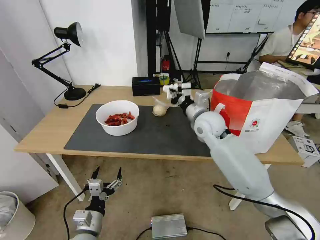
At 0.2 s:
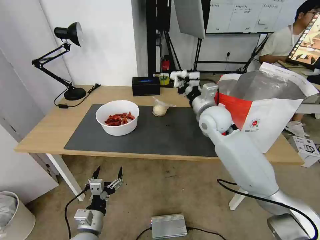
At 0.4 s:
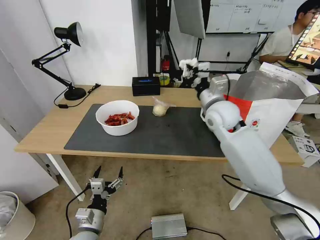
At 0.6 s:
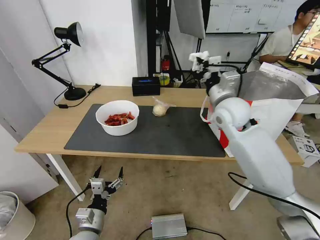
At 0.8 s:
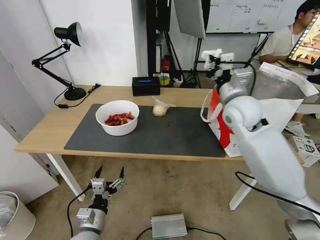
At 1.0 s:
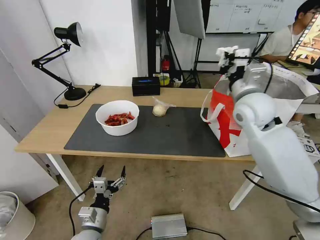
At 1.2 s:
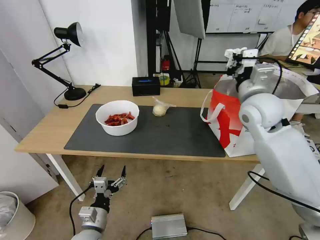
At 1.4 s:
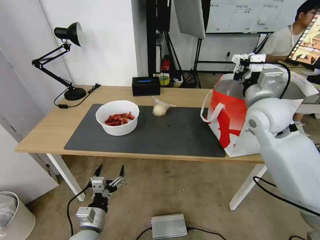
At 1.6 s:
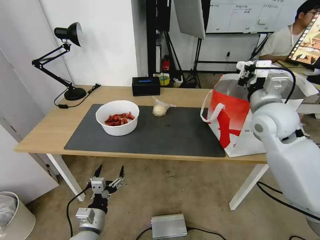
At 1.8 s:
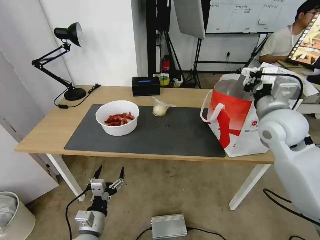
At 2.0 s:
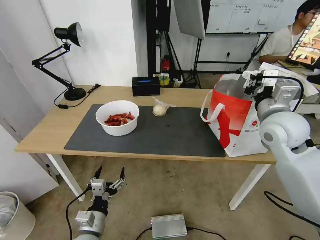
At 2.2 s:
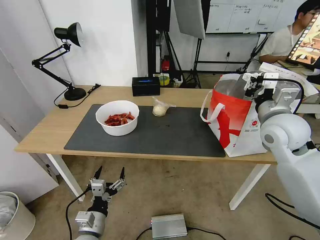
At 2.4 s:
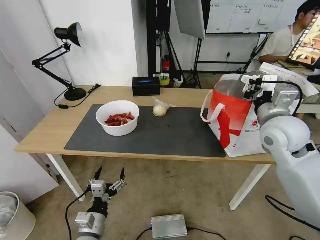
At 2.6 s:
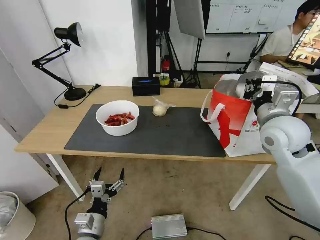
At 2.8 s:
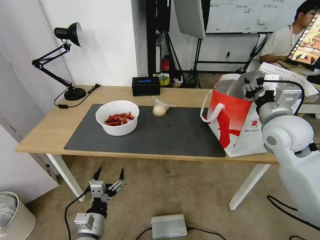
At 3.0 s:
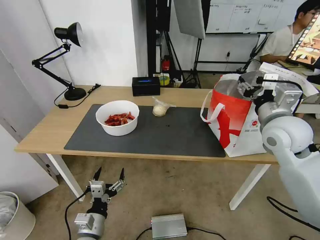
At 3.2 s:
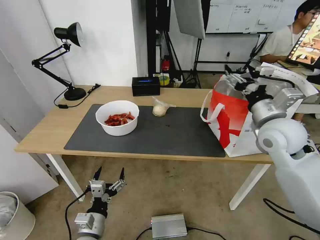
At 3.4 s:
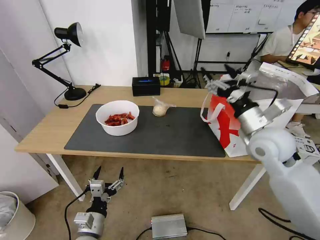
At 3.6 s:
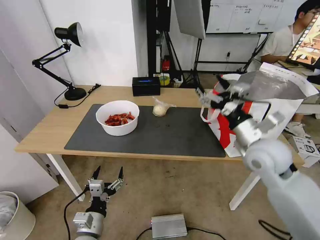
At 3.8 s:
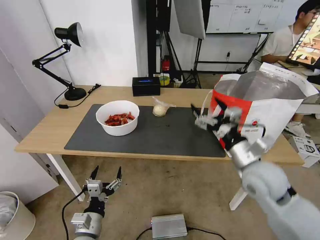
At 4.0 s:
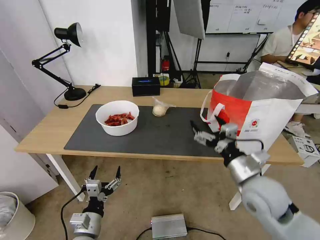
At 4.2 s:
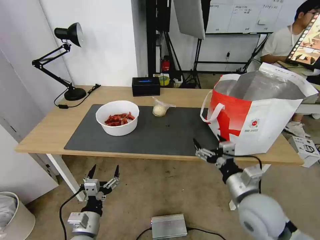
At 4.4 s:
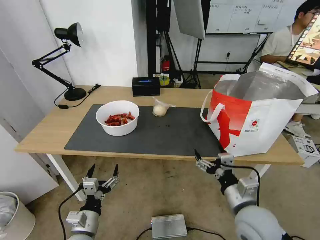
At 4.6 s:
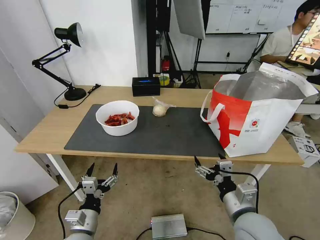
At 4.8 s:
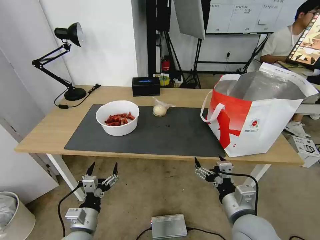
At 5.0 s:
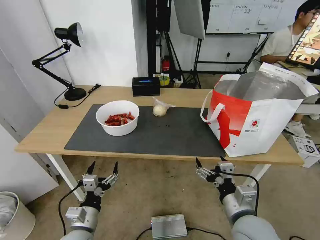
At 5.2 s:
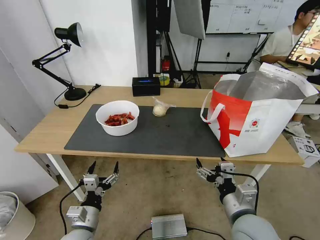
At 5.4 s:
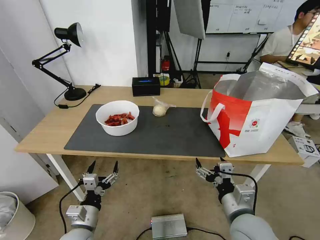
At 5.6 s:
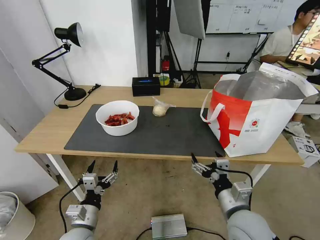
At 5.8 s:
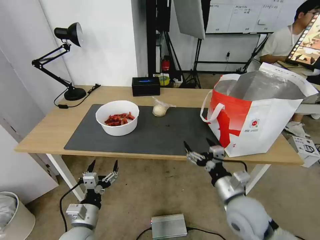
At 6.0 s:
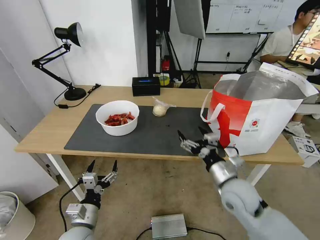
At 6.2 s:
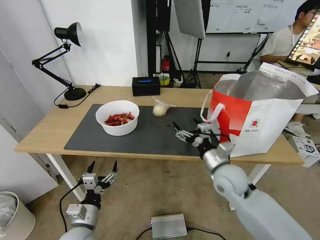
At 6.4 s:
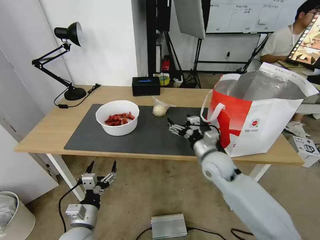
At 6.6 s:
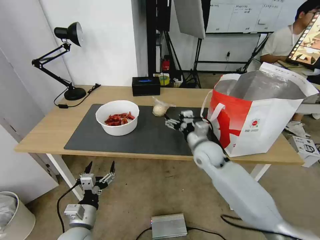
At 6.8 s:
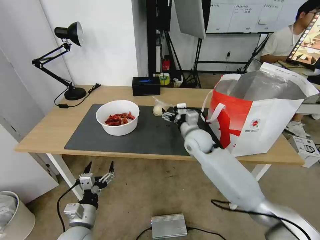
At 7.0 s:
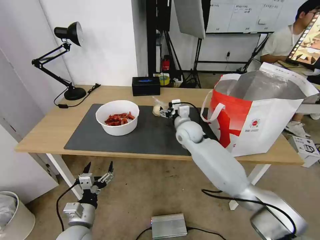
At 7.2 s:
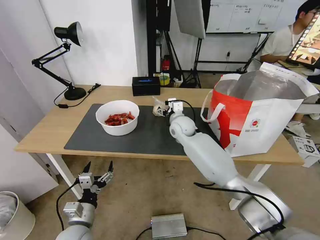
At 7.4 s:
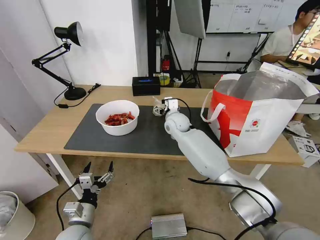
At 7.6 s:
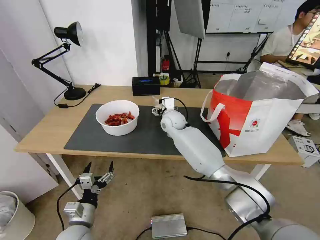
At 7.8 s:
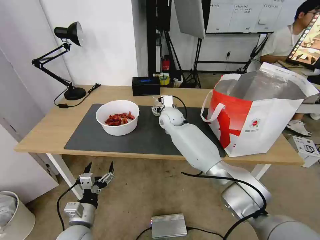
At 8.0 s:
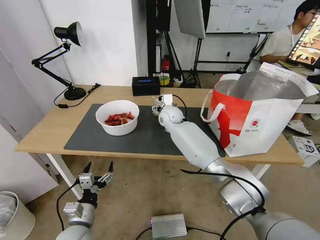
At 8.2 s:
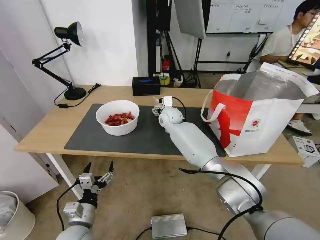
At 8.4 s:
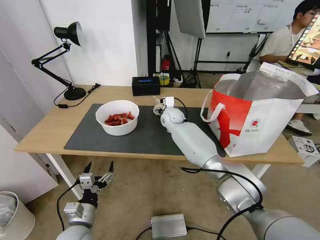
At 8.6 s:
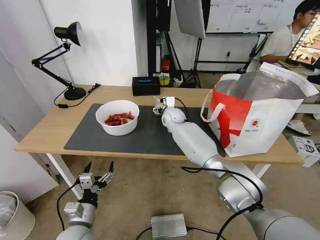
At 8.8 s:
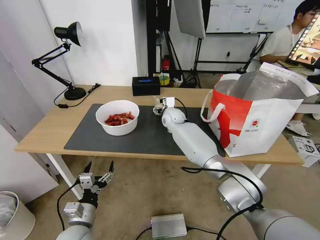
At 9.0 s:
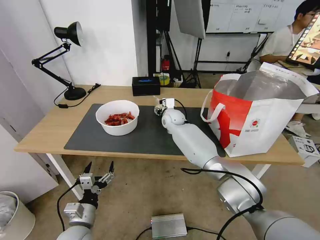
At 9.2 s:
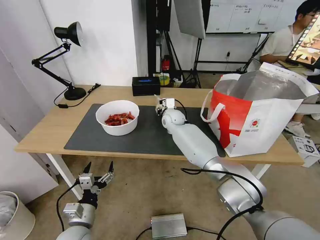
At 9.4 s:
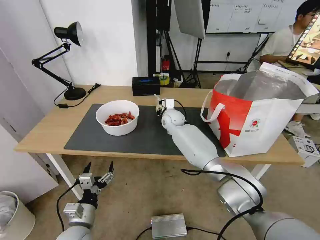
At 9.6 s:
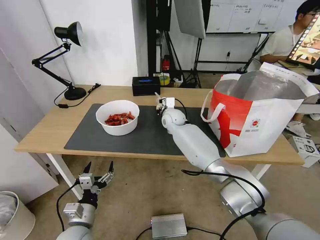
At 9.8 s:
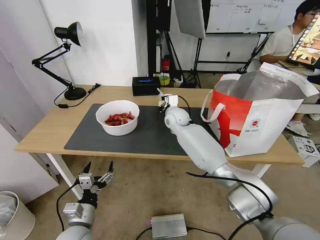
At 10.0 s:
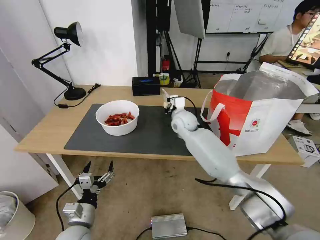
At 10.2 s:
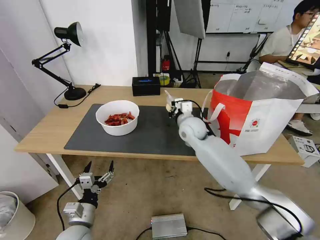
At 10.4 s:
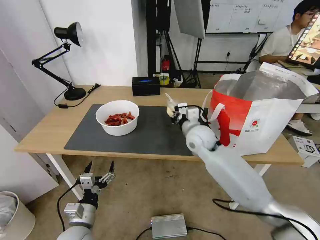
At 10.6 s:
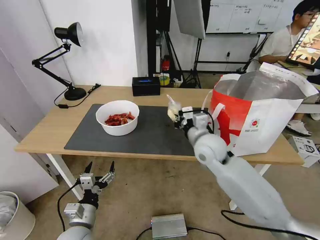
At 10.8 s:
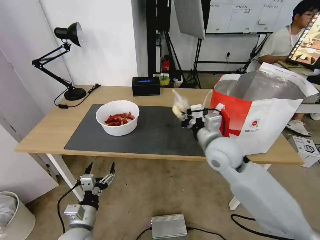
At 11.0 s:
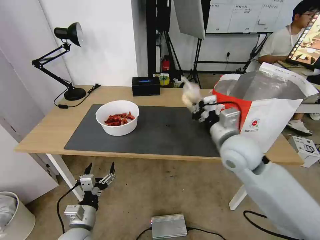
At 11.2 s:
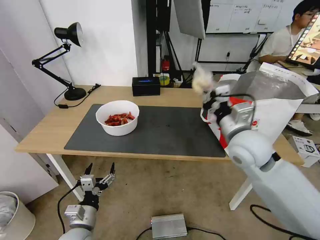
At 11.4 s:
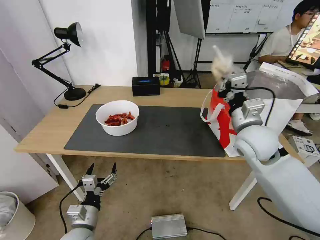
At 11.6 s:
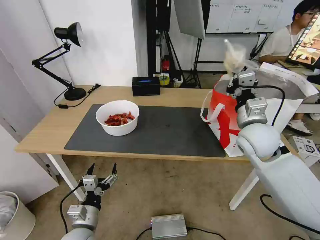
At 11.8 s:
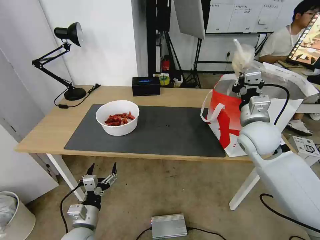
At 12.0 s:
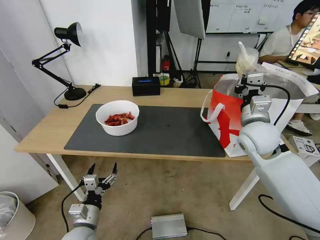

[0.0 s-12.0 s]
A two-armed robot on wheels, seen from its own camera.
Task of the whole recording: Pick up the trash from the table and place it into the takeout bag.
0.0 to 1.6 s: The right gripper travels to the right, upward and backward by roughly 15 cm.
1.6 to 3.0 s: The right gripper opens up.
3.0 to 4.4 s: The right gripper is displaced backward, downward and to the left by some 25 cm.
4.4 to 6.0 s: The right gripper goes some 10 cm forward.
6.0 to 7.6 s: The right gripper travels forward and to the left by roughly 35 cm.
7.6 to 9.0 s: The grippers move only a little.
9.0 to 10.4 s: The right gripper heads backward and to the right, covering about 15 cm, and closes its fingers.
10.4 to 12.0 s: The right gripper shifts approximately 15 cm to the right, upward and backward.

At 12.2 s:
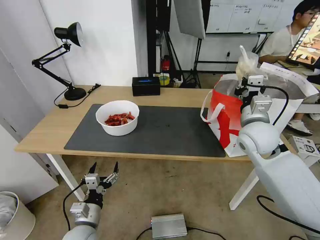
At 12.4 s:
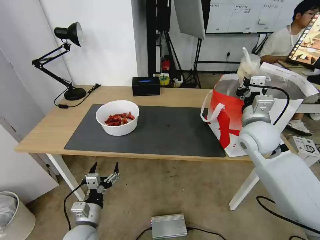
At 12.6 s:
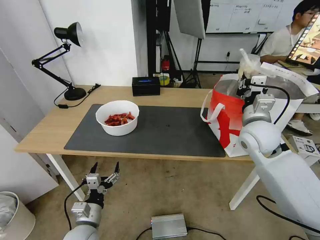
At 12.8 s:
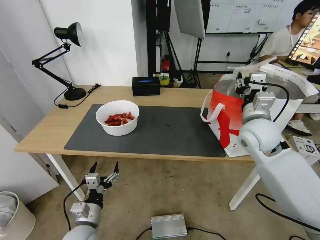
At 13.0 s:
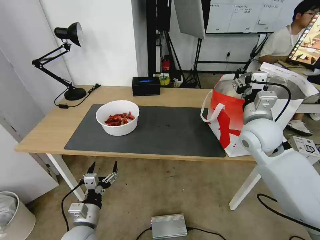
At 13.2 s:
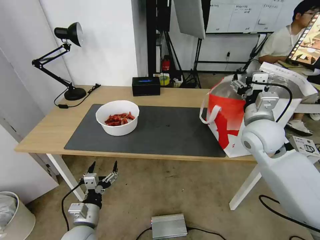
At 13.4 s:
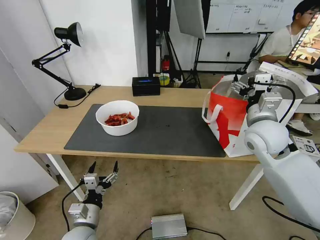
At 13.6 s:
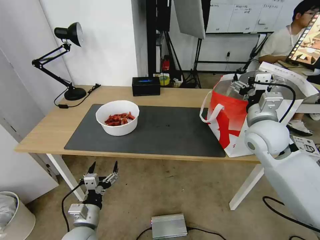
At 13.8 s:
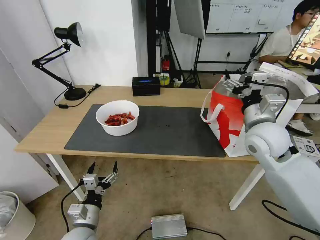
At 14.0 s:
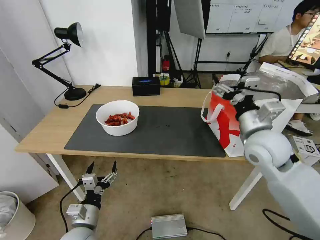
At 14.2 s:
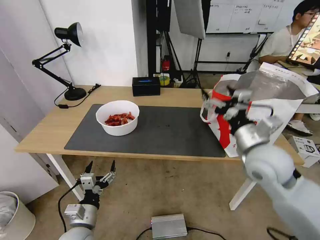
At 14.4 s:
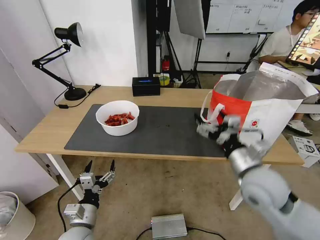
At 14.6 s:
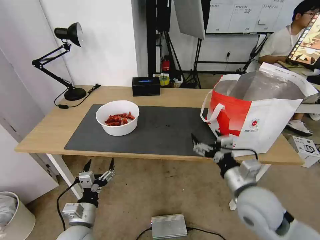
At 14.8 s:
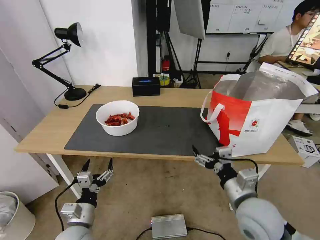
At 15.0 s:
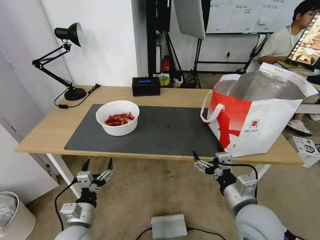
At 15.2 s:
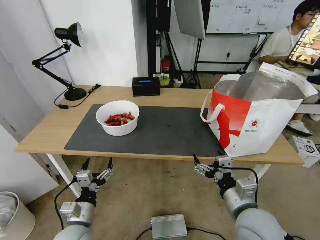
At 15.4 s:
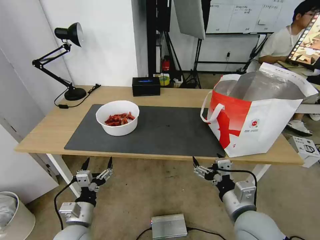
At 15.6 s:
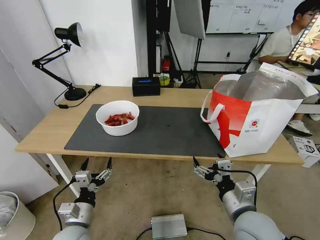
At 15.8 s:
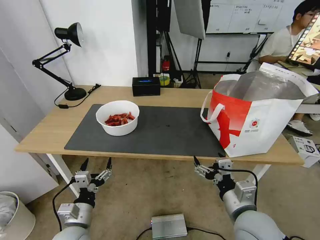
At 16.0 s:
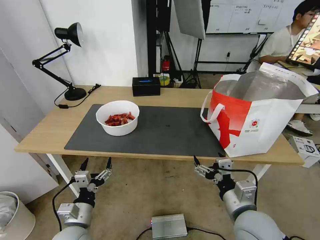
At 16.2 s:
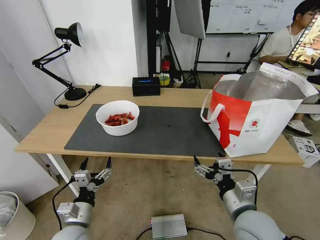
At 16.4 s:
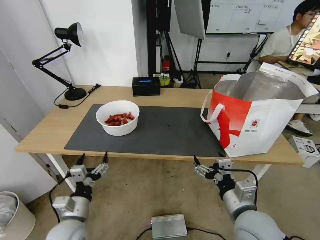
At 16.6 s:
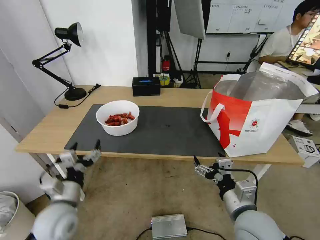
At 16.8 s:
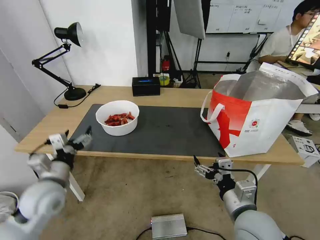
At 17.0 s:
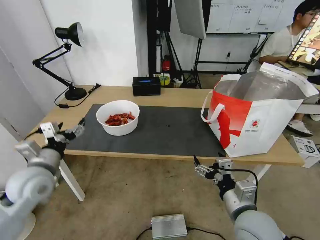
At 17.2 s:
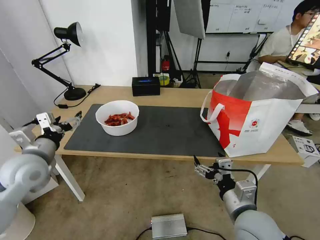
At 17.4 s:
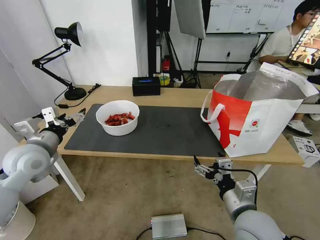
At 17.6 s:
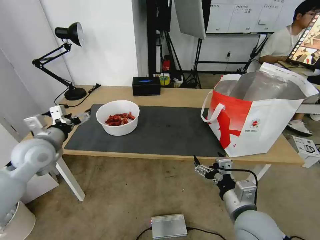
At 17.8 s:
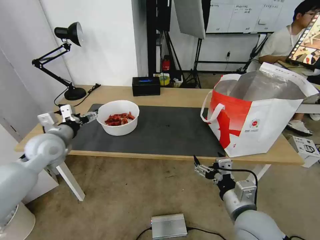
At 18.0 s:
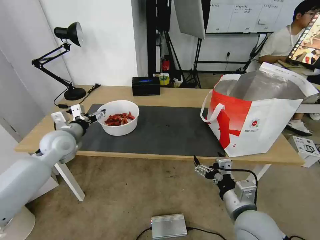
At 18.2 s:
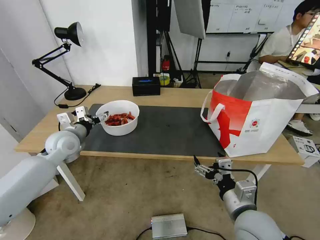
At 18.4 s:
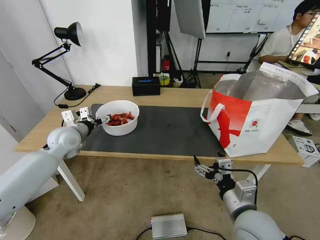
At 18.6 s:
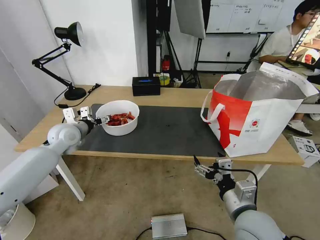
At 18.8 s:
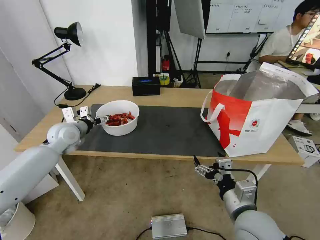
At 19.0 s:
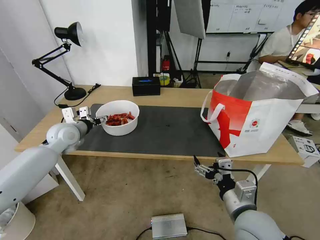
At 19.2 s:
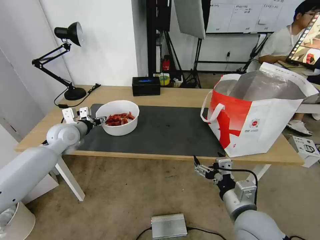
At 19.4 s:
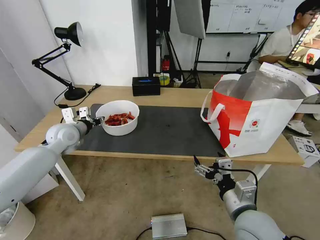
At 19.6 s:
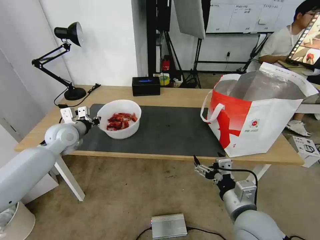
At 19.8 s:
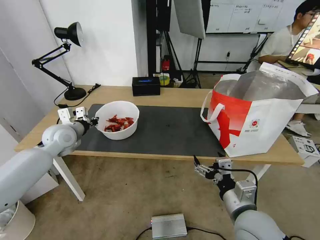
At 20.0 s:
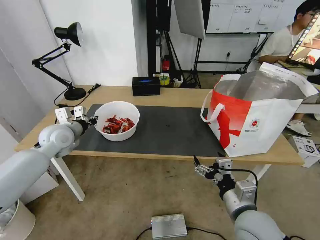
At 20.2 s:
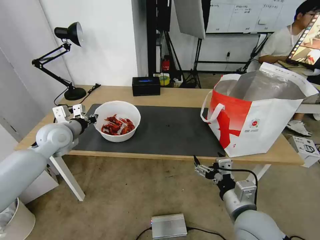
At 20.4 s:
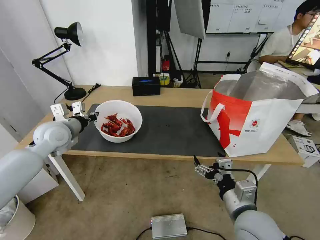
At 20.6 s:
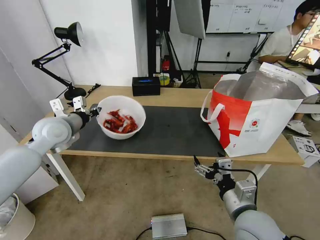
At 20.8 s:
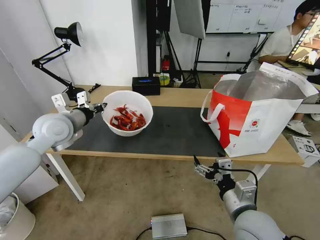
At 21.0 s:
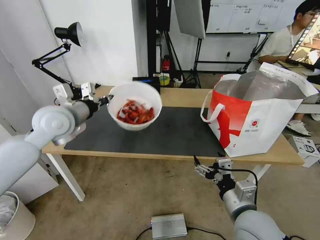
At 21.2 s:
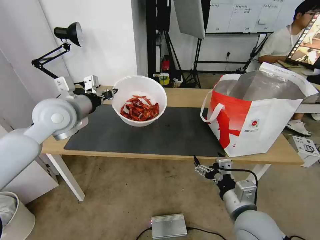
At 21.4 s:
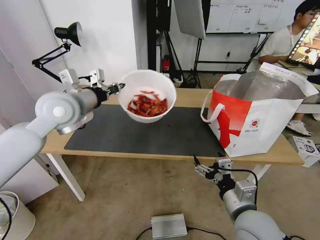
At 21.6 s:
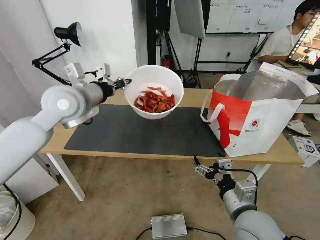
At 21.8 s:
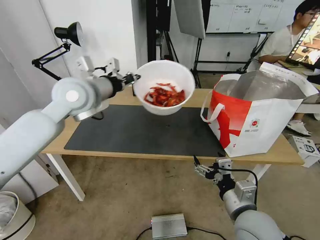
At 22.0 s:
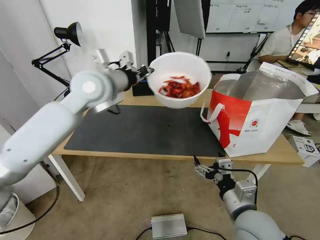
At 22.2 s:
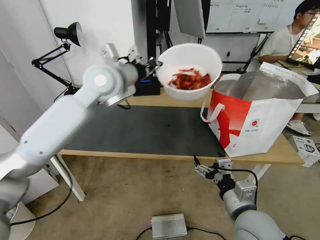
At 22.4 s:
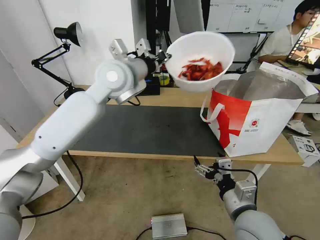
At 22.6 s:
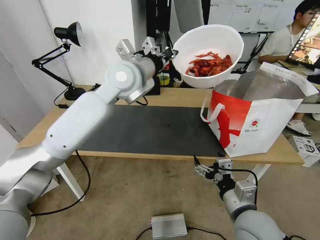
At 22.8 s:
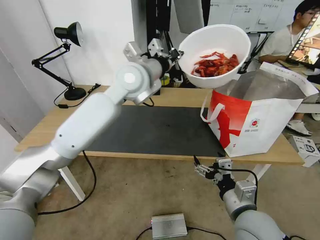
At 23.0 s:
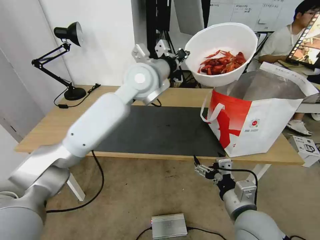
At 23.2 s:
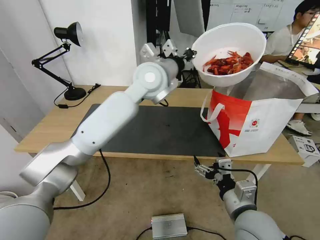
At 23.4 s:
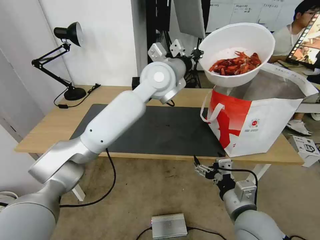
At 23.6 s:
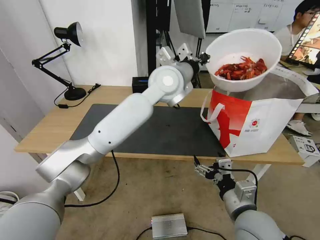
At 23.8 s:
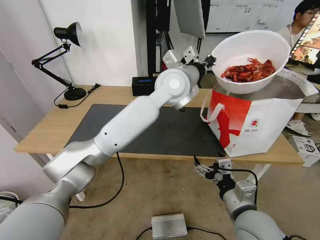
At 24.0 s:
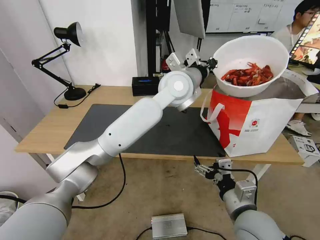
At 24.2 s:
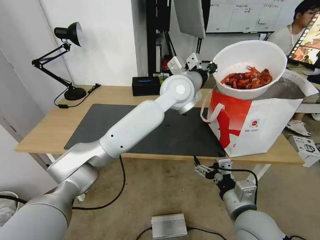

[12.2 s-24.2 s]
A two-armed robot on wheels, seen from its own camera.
Task of the whole recording: Pick up the trash from the table and place it into the takeout bag.
12.2 to 13.8 s: The right gripper opens its fingers.
13.8 to 15.2 s: The right gripper travels backward and downward by roughly 20 cm.
15.2 to 16.6 s: The left gripper heads upward, covering some 10 cm.
16.6 to 18.2 s: The left gripper is displaced forward by roughly 20 cm.
18.2 to 19.8 s: The left gripper closes up.
19.8 to 21.2 s: The left gripper goes roughly 15 cm upward and to the right.
21.2 to 22.6 s: The left gripper moves to the right, roughly 15 cm.
22.6 to 24.2 s: The left gripper heads to the right, covering roughly 15 cm.
